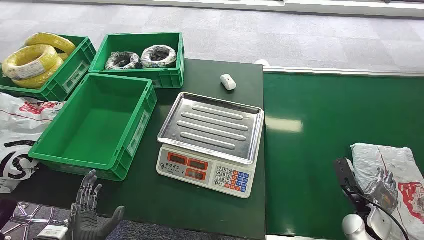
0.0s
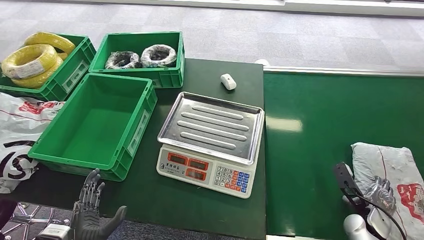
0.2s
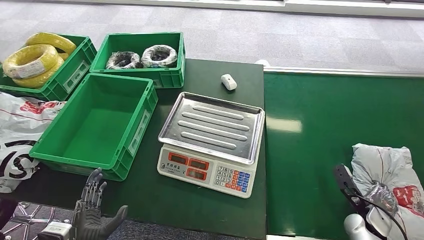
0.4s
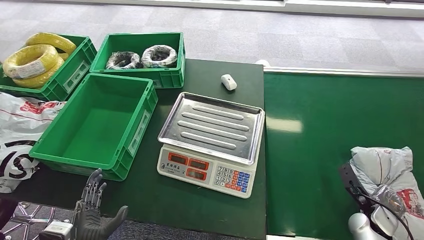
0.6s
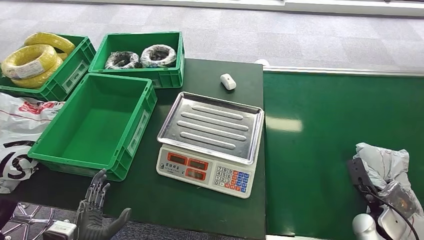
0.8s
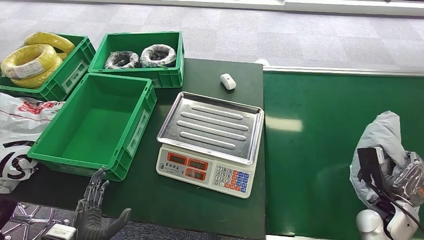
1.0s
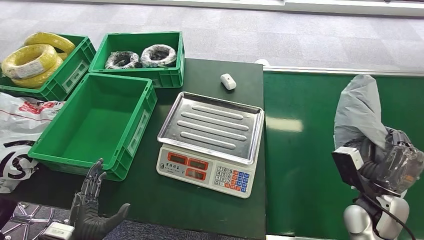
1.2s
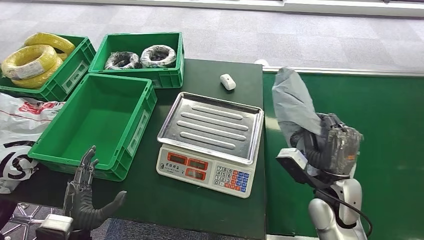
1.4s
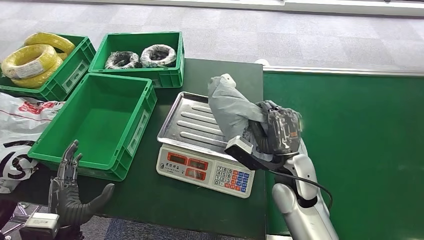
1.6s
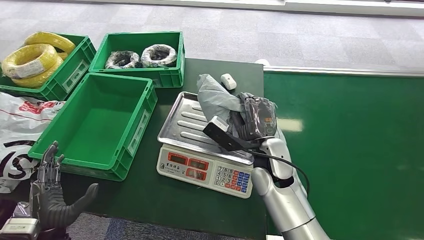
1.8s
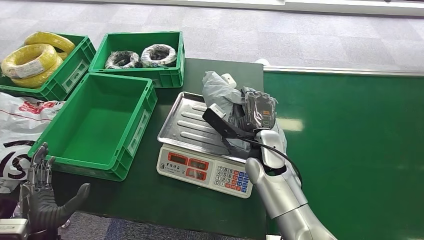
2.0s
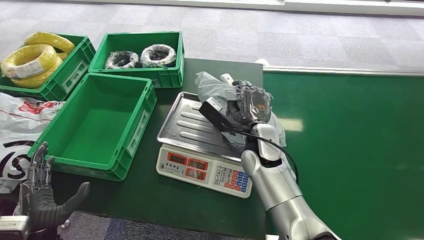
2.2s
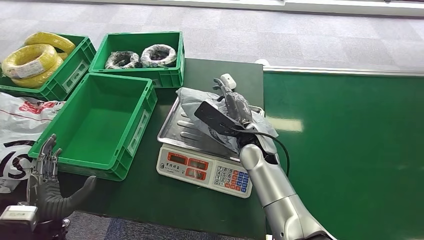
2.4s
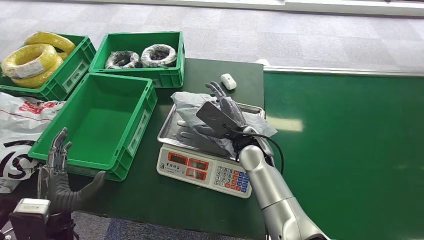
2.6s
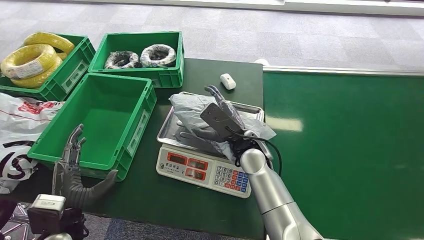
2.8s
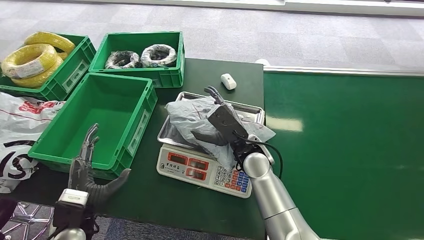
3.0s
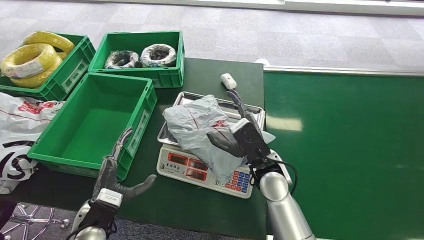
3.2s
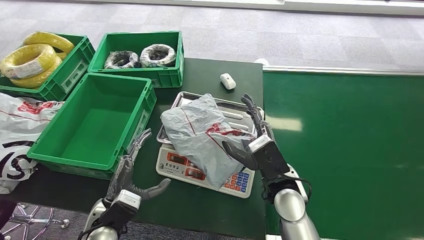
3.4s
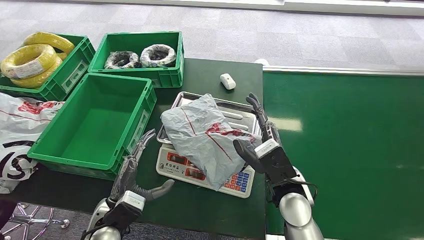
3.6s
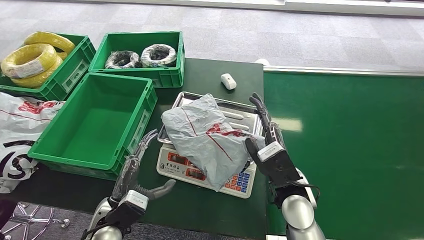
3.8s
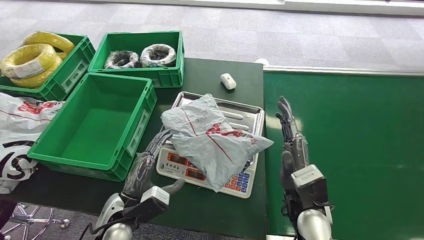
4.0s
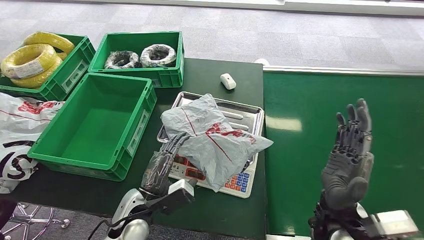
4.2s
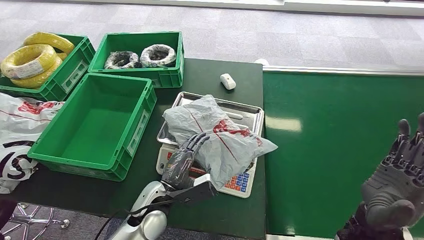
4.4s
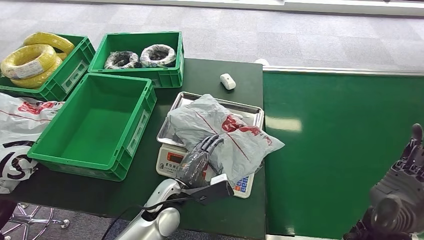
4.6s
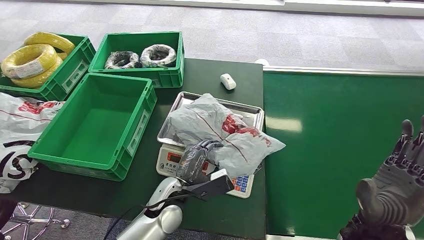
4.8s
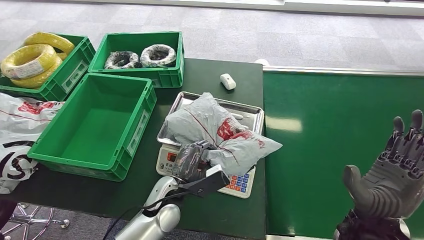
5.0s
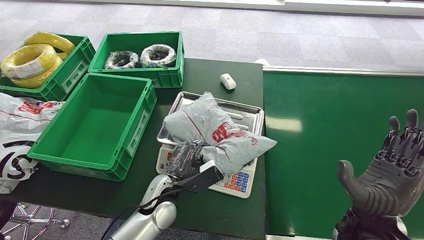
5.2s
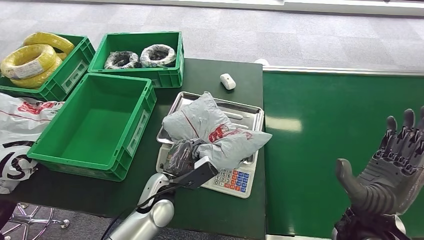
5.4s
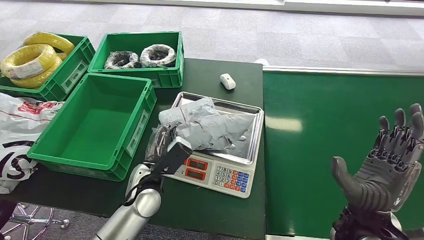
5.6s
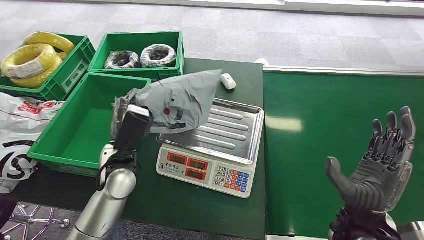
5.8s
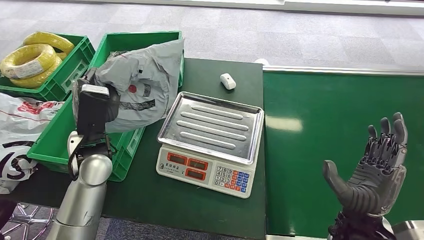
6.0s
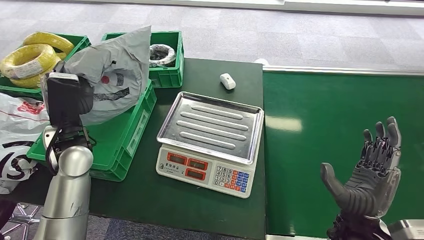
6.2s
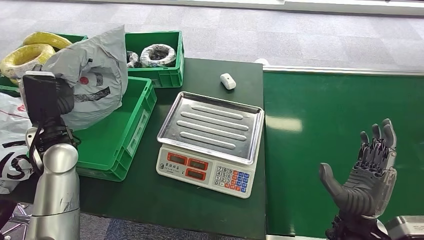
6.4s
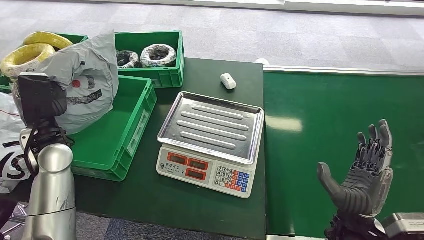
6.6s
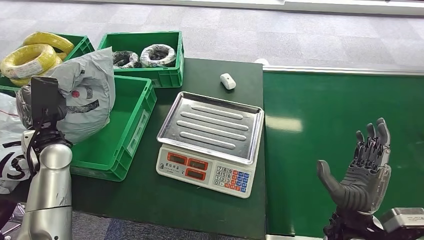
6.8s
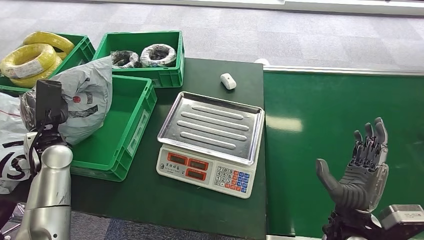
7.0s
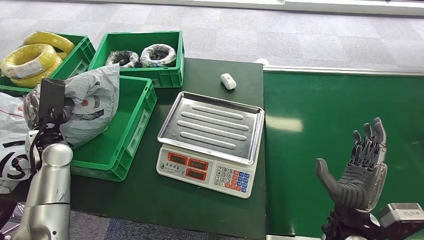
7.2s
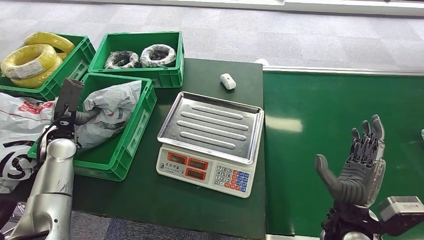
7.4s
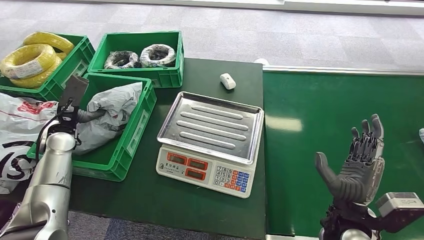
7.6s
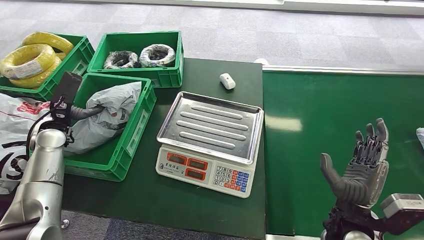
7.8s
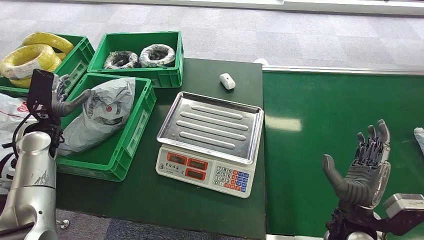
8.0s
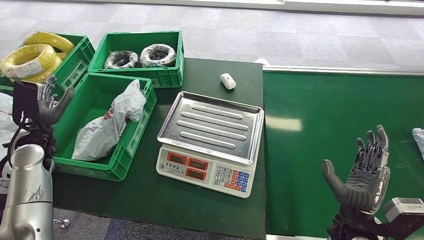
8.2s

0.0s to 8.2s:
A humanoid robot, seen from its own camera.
Task of the whole recording: Weigh the package on the weighing device and place it in the left basket.
Step, 0.0s to 1.0s: Pick up the package from the conveyor belt.
Step, 1.4s to 3.6s: Place the package onto the inbound machine.
Step, 3.8s to 5.8s: Pick up the package from the inbound machine.
Step, 6.2s to 8.2s: Place the package into the parcel locker.
1.6s to 3.2s: The right hand shifts about 5 cm to the left, while the left hand moves approximately 5 cm.
3.2s to 5.0s: The left hand moves to the right and forward, roughly 15 cm, while the right hand heads to the right and backward, covering roughly 20 cm.
6.6s to 8.2s: The left hand heads to the left, covering approximately 10 cm.
